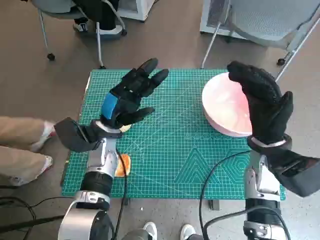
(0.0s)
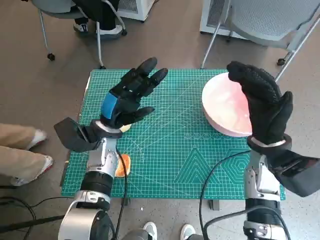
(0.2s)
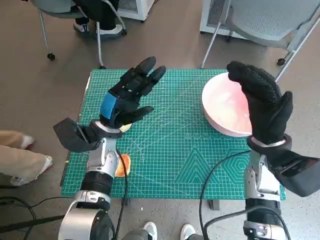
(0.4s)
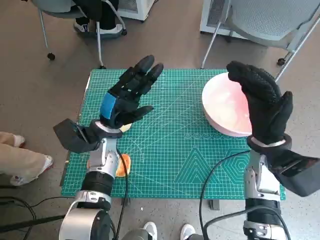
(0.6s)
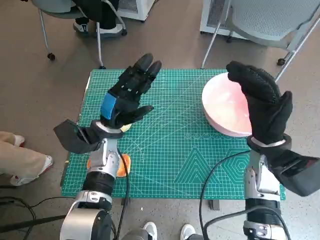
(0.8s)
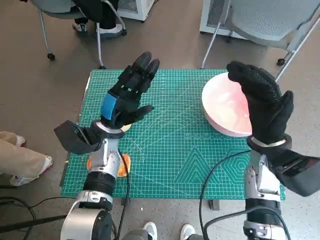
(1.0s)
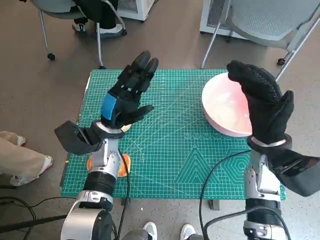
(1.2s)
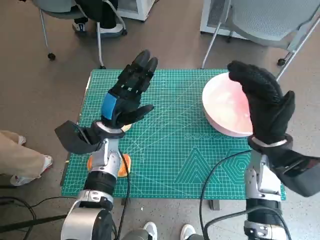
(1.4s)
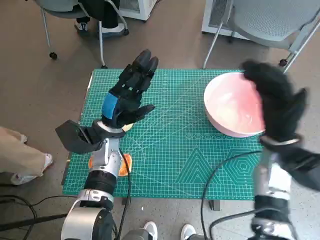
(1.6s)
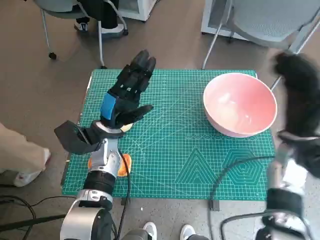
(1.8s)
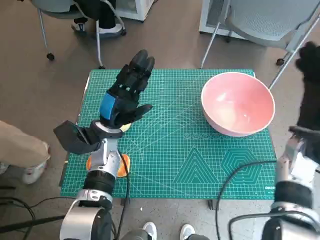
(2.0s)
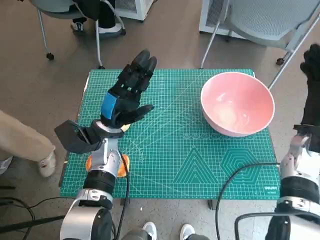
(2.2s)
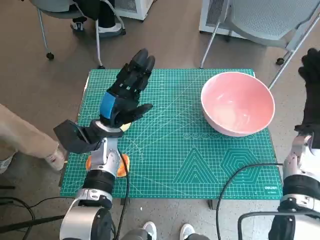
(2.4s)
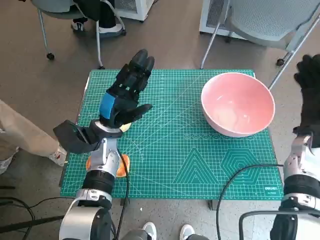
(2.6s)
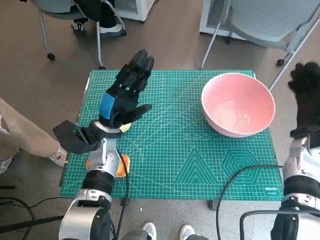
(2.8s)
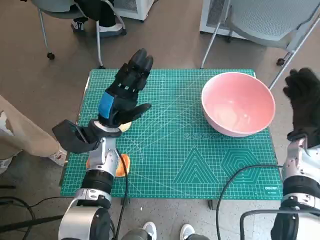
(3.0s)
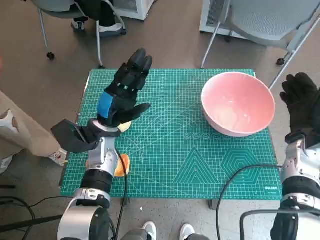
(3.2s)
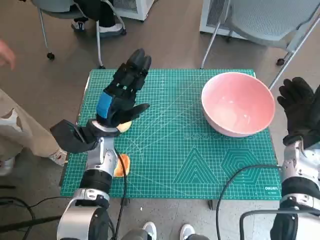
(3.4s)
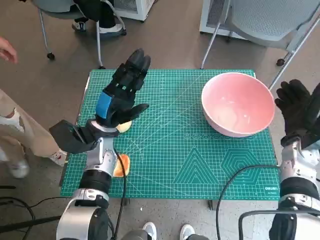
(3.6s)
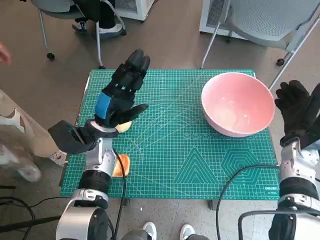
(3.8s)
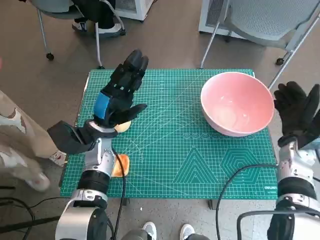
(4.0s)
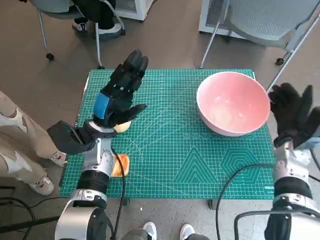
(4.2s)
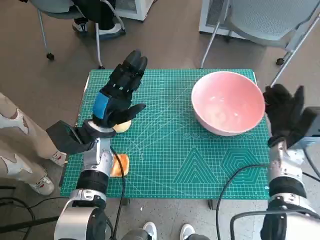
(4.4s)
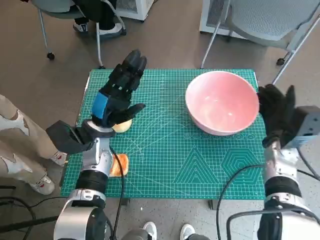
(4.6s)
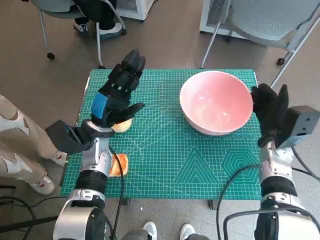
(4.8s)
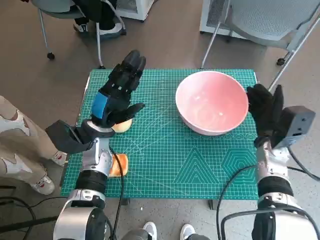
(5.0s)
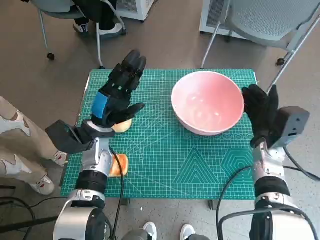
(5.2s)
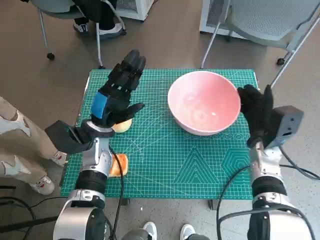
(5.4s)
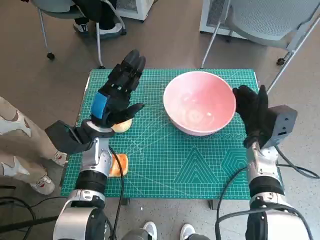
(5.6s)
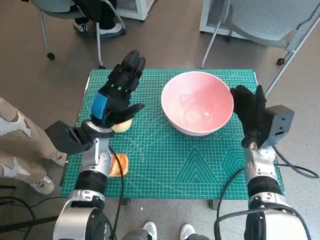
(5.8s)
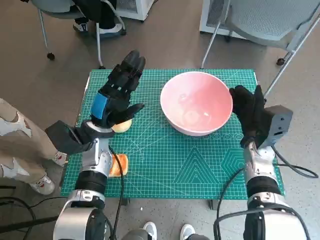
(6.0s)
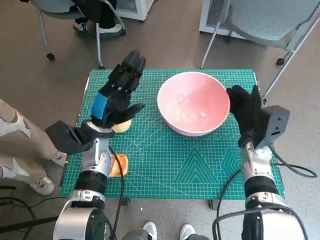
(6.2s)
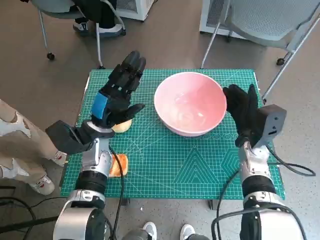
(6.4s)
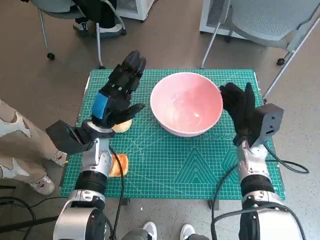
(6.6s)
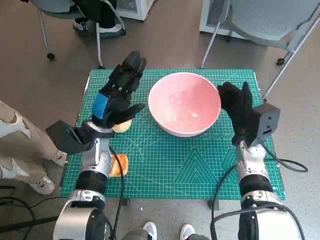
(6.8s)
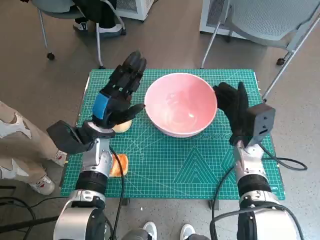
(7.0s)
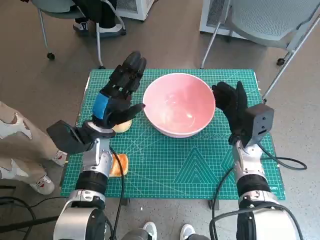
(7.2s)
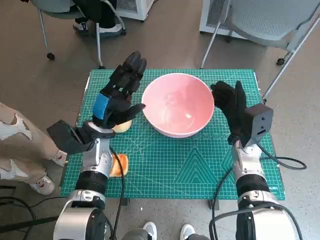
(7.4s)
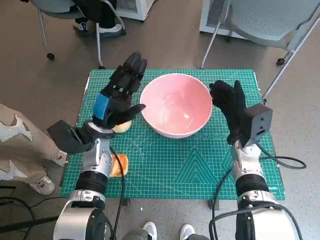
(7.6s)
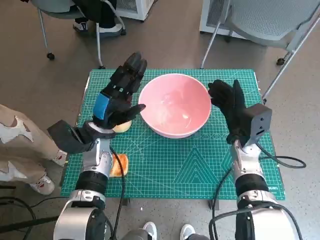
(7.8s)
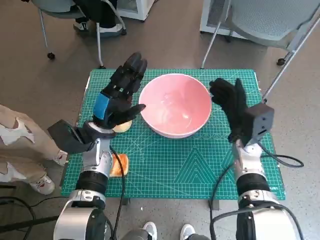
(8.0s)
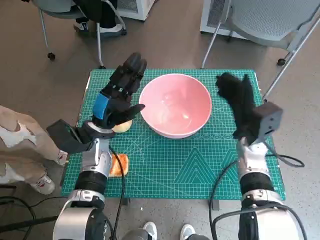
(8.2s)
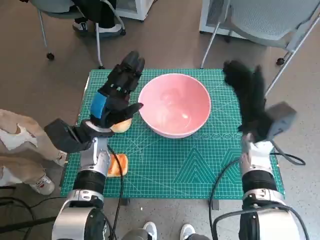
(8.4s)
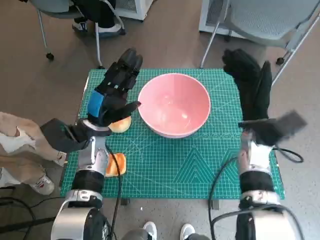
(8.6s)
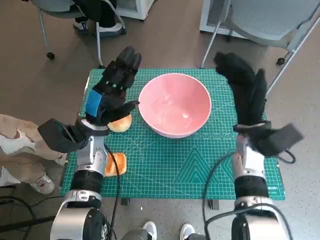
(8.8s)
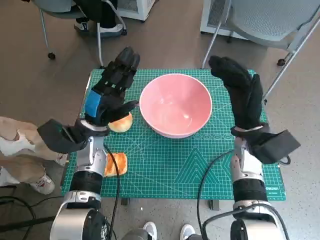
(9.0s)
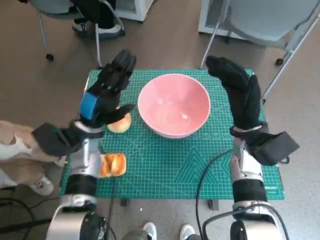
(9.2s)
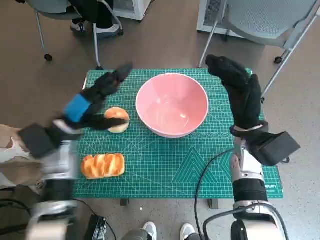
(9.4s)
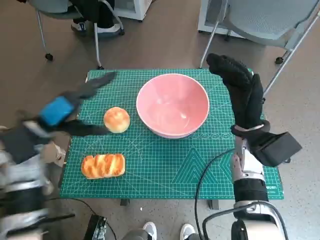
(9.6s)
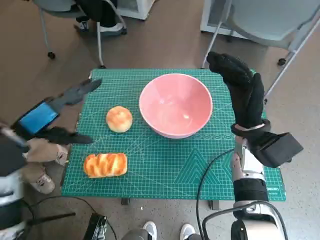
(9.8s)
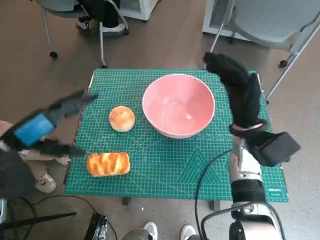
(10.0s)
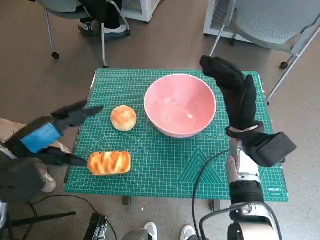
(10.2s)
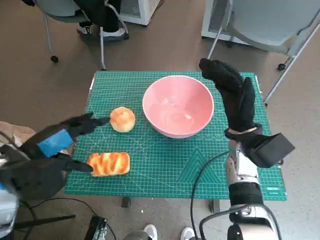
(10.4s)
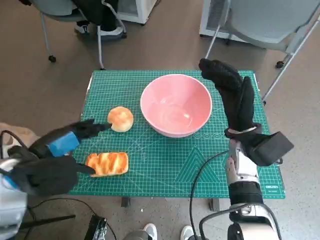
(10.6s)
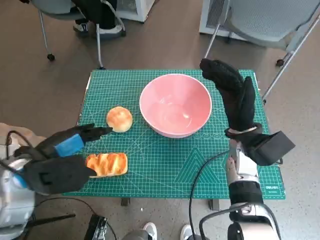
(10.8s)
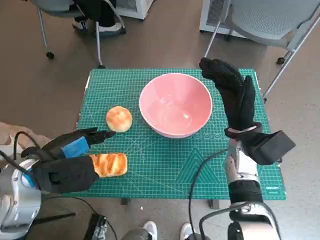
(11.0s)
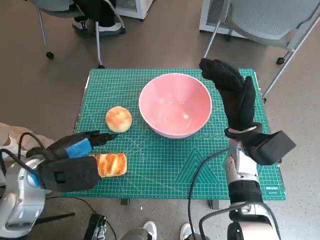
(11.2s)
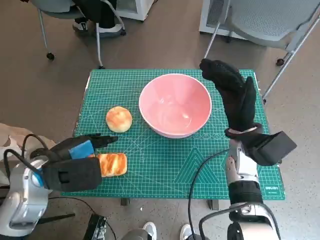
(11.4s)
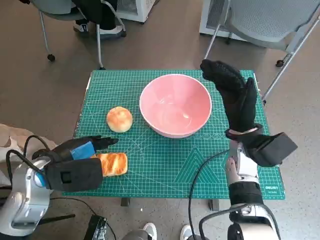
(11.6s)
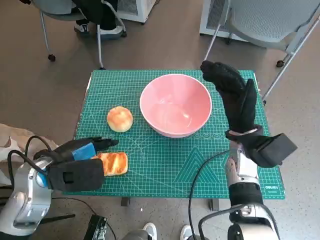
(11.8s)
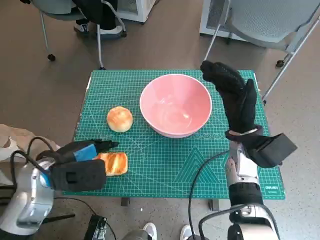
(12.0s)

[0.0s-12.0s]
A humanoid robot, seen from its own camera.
Step, 0.0s to 8.0s: Move the pink bowl to the center of table with right hand.
1.6s to 3.0s: The right hand shifts about 10 cm to the right.
4.4s to 6.0s: The right hand is displaced to the left by roughly 5 cm.
6.0s to 7.6s: There are only small adjustments of the hands.
7.6s to 9.0s: The right hand moves roughly 5 cm.
9.0s to 10.4s: The left hand goes roughly 15 cm backward, upward and to the left.
10.4s to 12.0s: The left hand moves downward, some 5 cm.

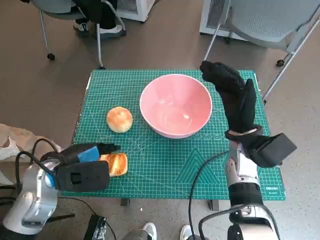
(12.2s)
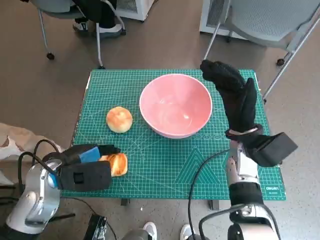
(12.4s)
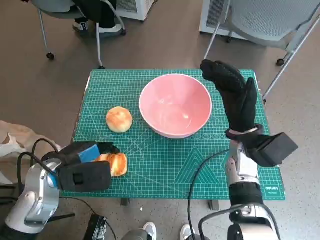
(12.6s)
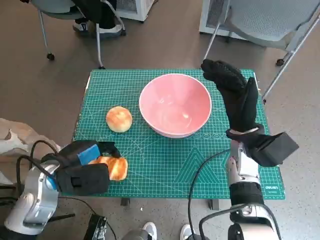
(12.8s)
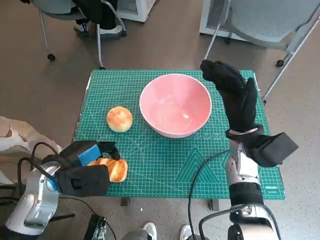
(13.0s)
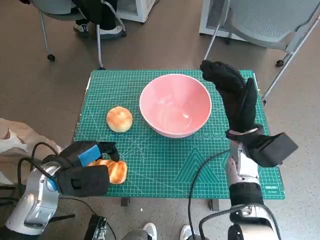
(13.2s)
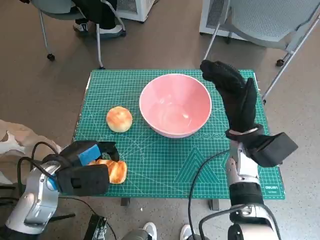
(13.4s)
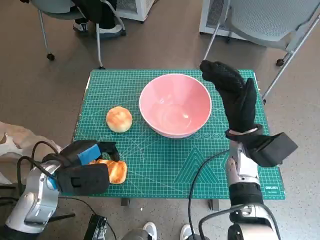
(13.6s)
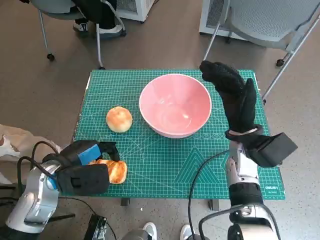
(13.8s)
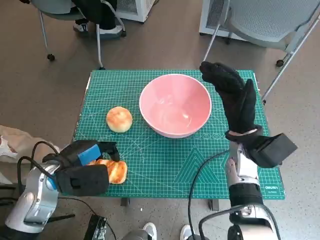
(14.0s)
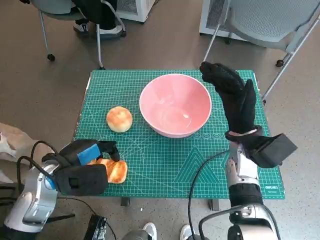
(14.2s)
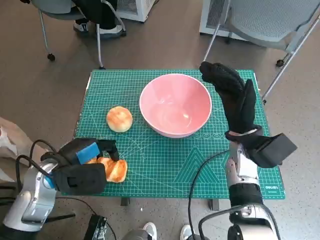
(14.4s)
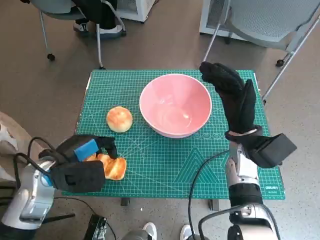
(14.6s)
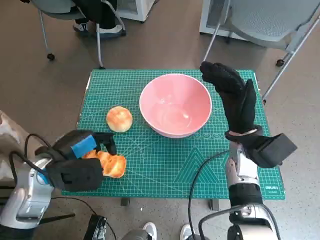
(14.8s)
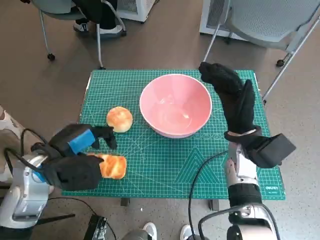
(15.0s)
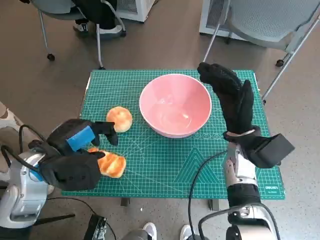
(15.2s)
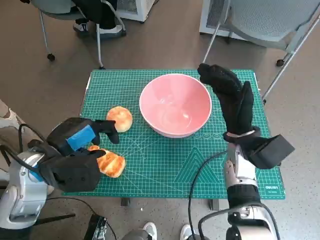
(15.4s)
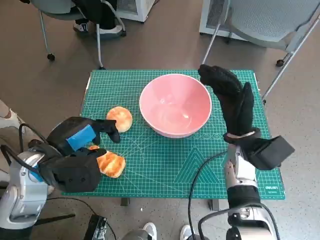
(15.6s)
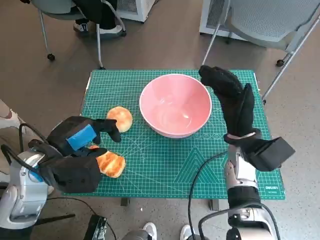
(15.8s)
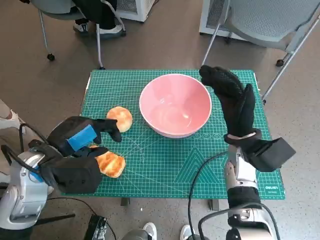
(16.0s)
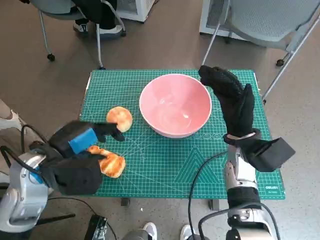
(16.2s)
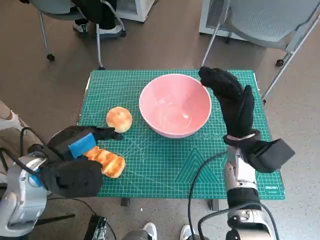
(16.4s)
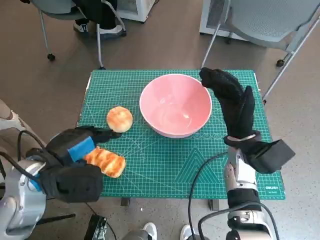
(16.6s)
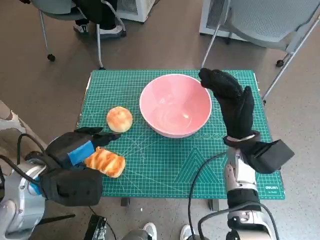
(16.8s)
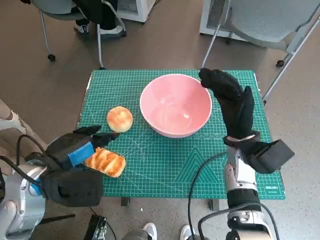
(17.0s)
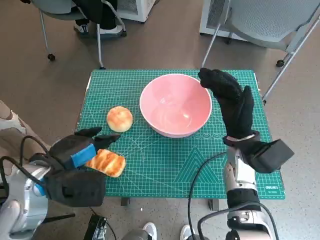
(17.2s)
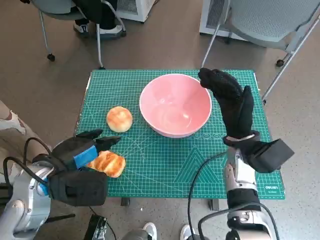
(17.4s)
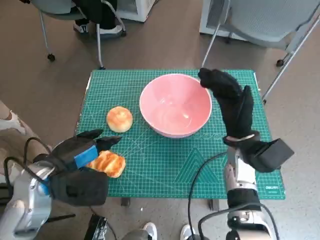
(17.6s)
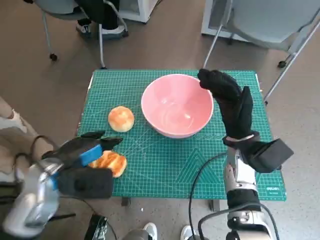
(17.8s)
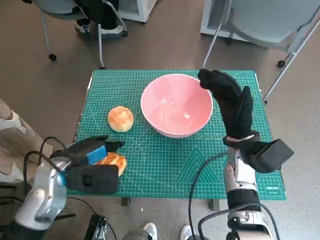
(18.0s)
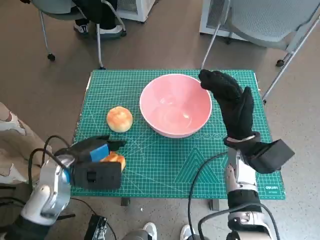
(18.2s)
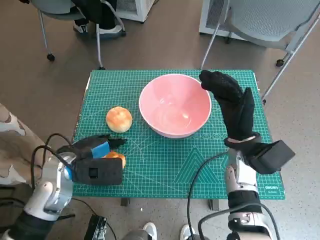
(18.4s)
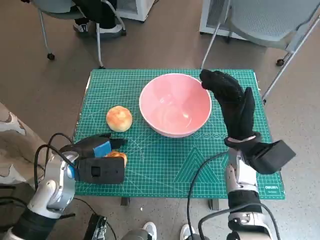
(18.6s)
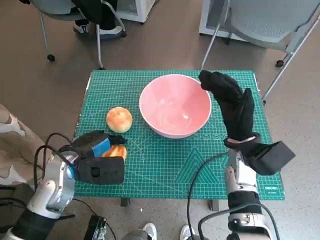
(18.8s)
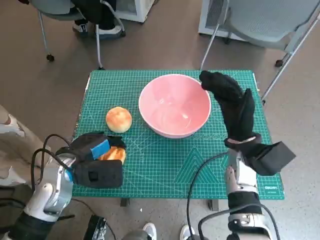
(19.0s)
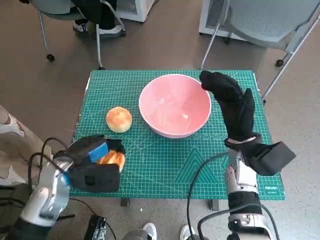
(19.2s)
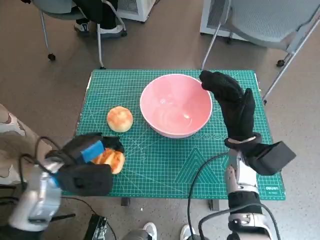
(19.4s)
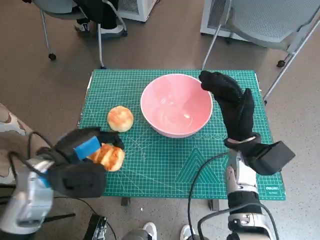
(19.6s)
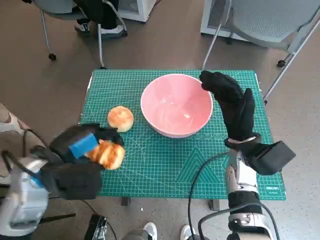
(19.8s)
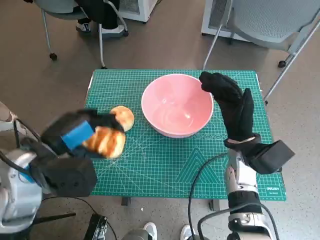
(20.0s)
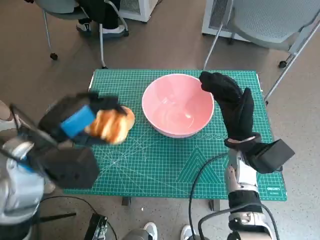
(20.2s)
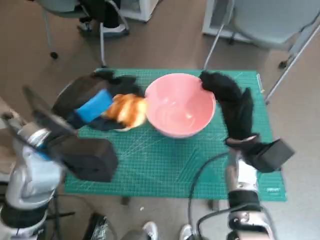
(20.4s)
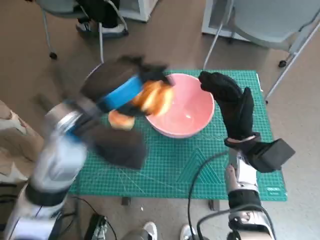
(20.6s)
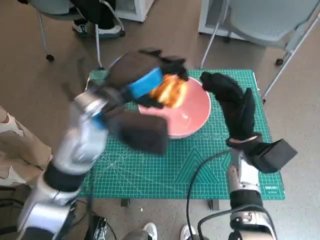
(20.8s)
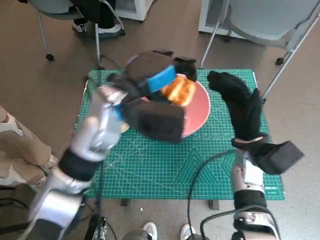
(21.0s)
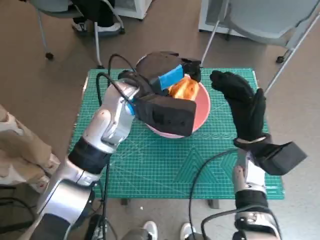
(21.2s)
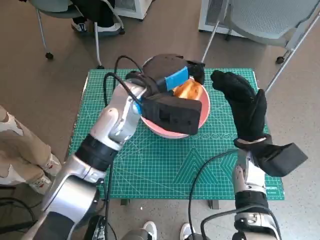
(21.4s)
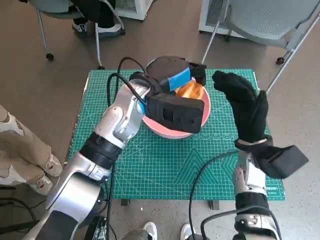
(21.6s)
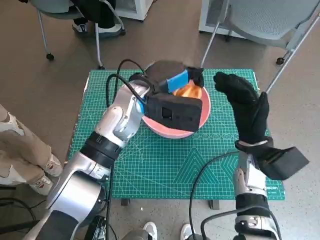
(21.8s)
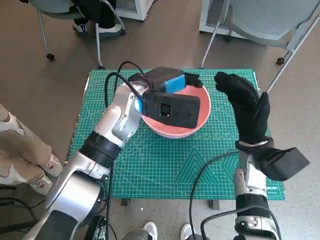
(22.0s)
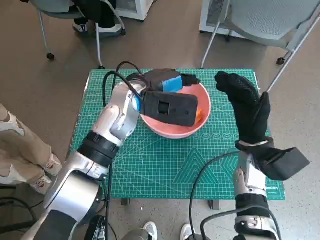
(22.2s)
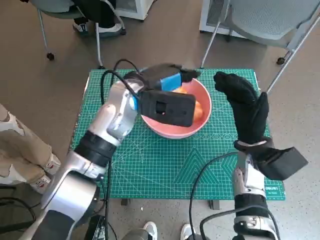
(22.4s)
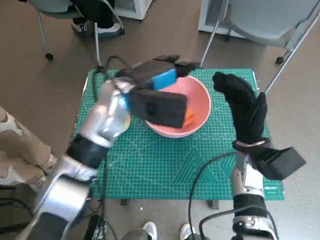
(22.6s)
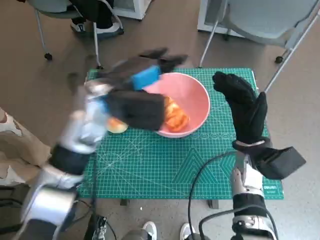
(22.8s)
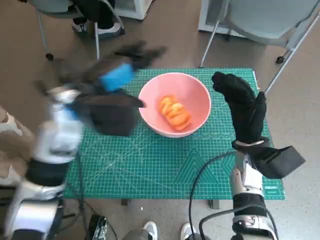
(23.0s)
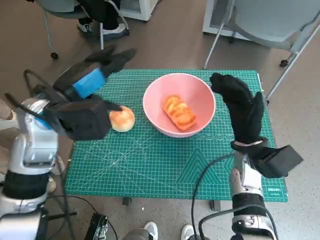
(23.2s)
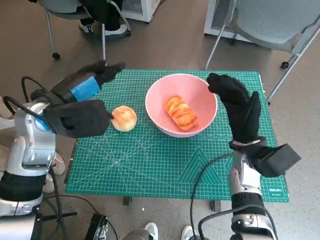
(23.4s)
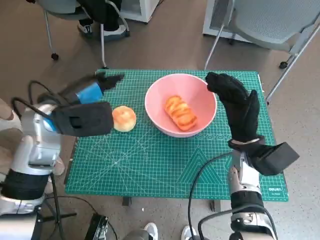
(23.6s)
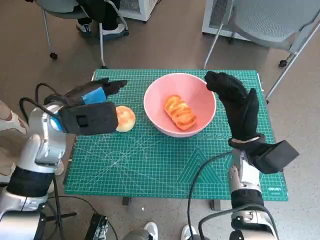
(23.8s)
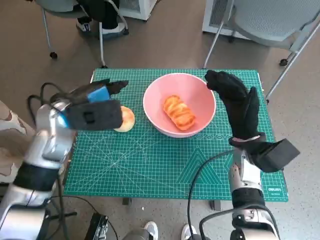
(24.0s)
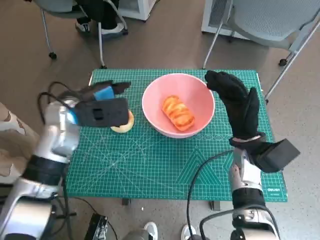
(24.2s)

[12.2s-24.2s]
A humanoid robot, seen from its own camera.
Step, 12.2s to 18.8s: Grasp the long bread with left hand.
Step, 19.0s to 22.2s: Place the long bread in pink bowl with left hand.
12.2s to 13.8s: There are only small adjustments of the hands.
13.8s to 16.6s: The hands make only small movements.
16.6s to 18.2s: The left hand shifts approximately 5 cm downward.
18.2s to 19.8s: The left hand goes roughly 5 cm upward.
19.8s to 21.2s: The left hand goes some 20 cm to the right, forward and upward.
21.2s to 22.6s: The hands make only small movements.
22.6s to 24.2s: The left hand is displaced to the left by approximately 10 cm.
